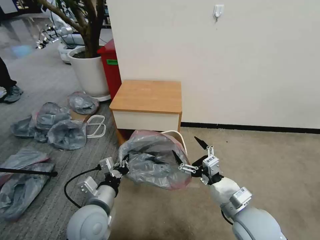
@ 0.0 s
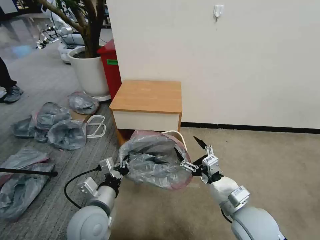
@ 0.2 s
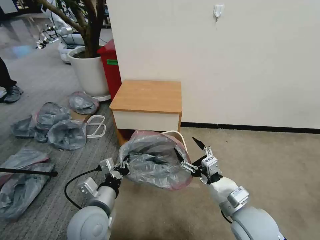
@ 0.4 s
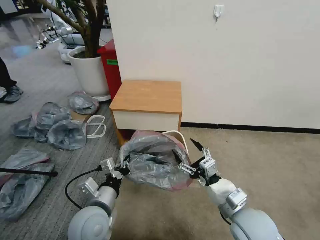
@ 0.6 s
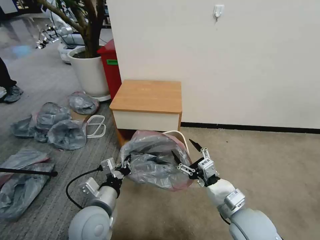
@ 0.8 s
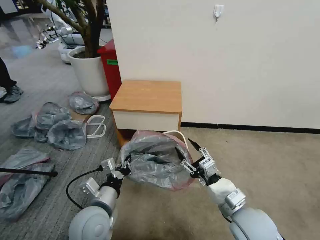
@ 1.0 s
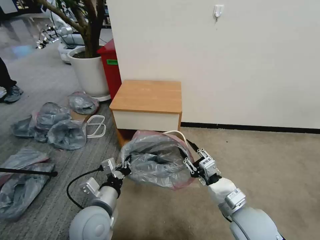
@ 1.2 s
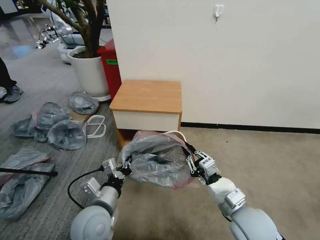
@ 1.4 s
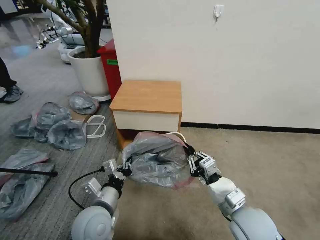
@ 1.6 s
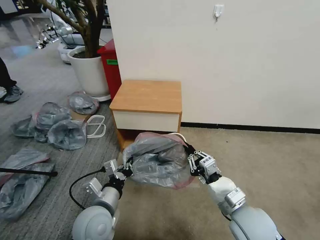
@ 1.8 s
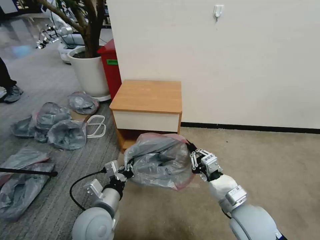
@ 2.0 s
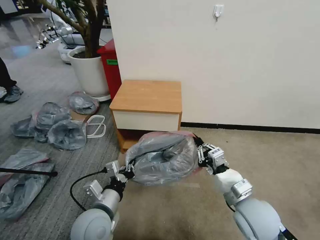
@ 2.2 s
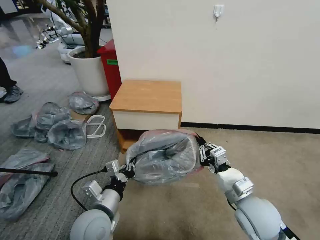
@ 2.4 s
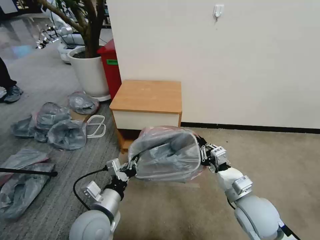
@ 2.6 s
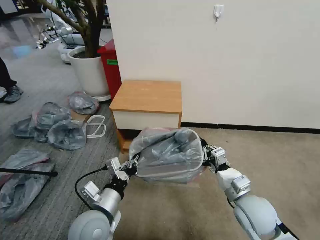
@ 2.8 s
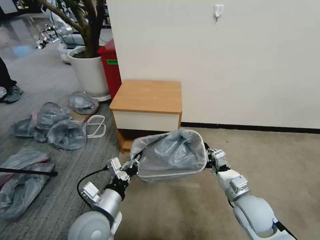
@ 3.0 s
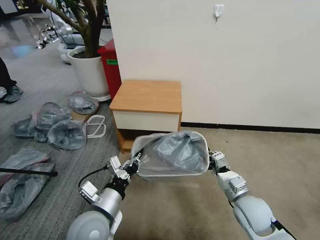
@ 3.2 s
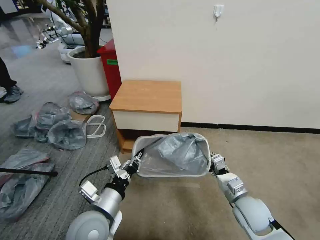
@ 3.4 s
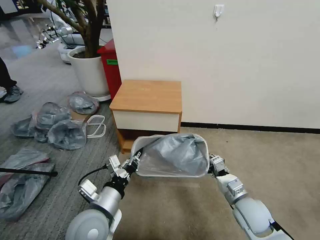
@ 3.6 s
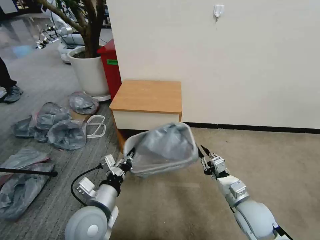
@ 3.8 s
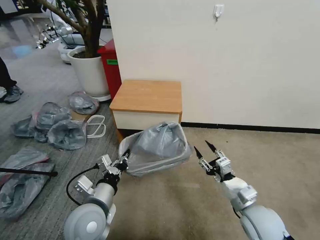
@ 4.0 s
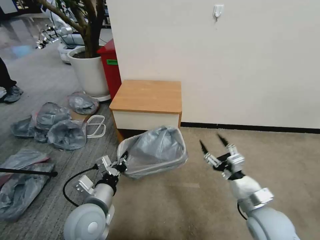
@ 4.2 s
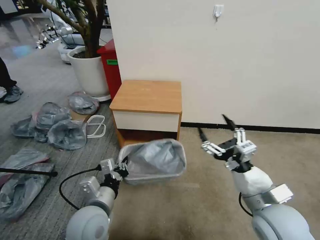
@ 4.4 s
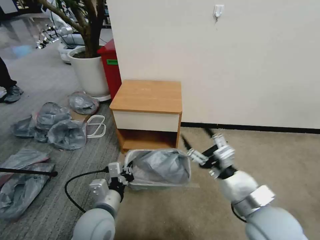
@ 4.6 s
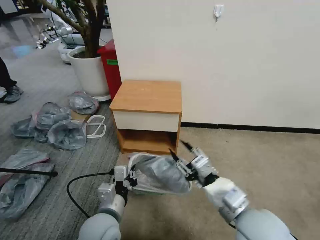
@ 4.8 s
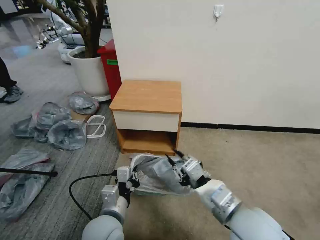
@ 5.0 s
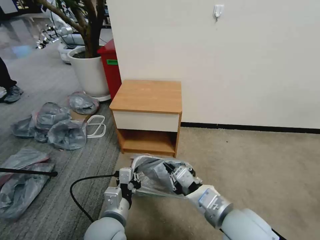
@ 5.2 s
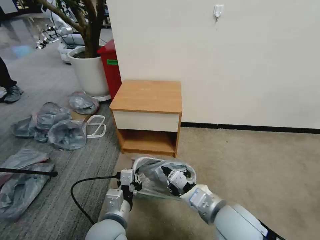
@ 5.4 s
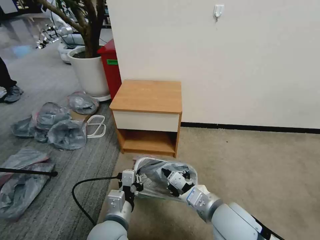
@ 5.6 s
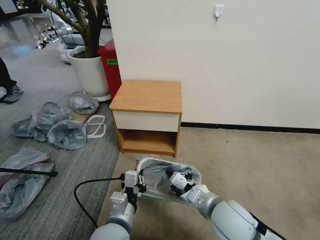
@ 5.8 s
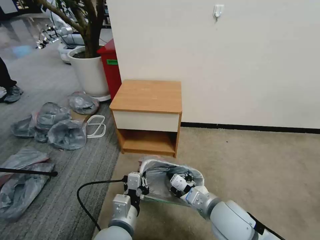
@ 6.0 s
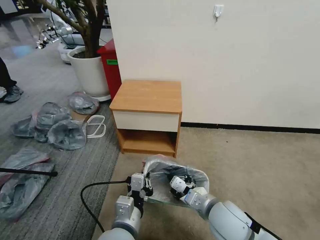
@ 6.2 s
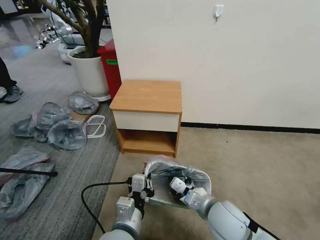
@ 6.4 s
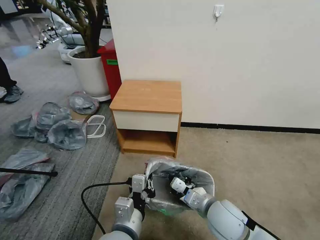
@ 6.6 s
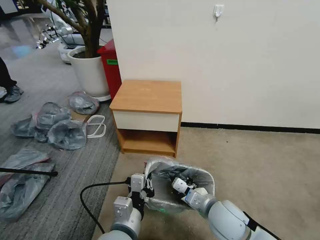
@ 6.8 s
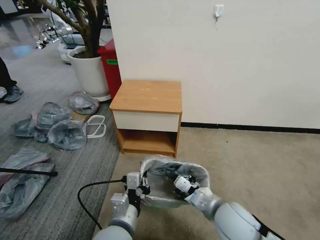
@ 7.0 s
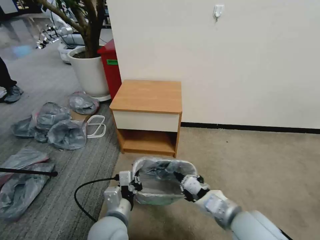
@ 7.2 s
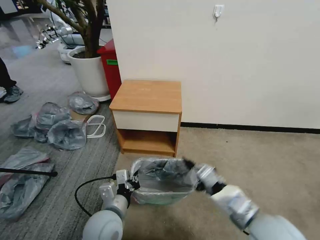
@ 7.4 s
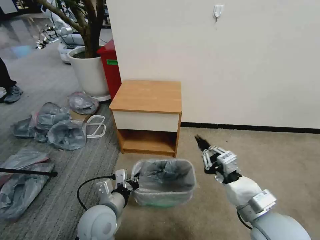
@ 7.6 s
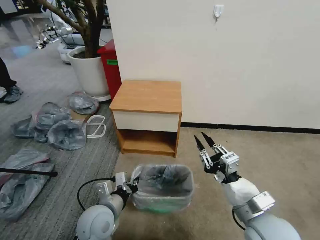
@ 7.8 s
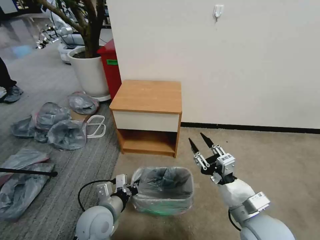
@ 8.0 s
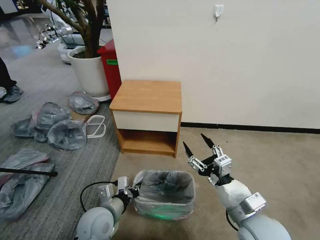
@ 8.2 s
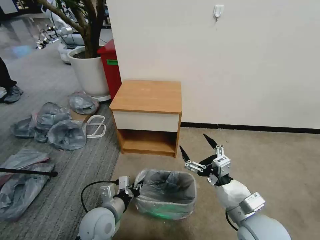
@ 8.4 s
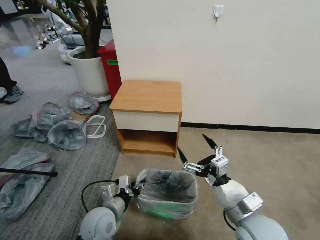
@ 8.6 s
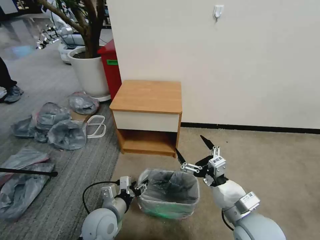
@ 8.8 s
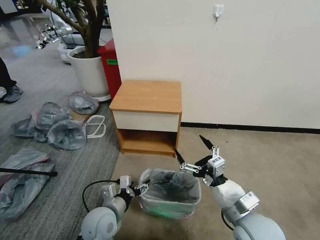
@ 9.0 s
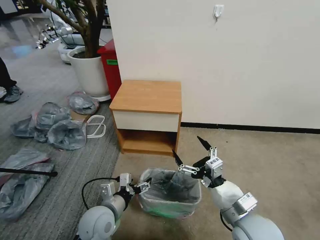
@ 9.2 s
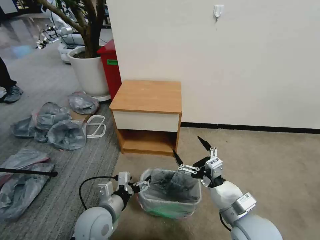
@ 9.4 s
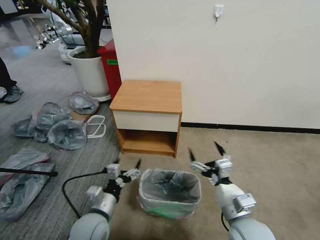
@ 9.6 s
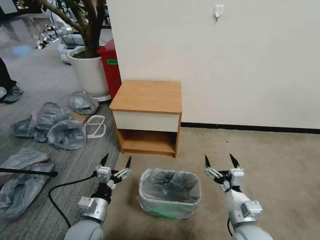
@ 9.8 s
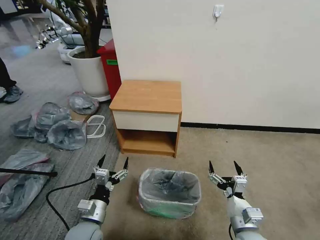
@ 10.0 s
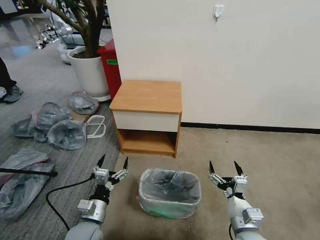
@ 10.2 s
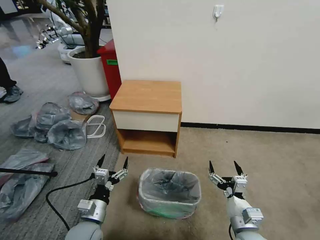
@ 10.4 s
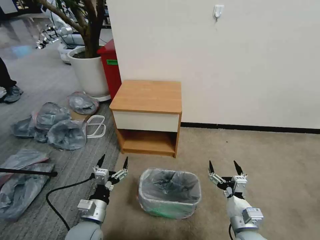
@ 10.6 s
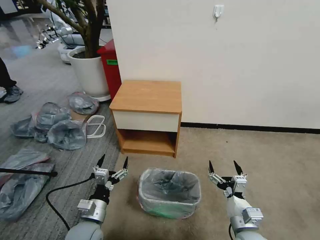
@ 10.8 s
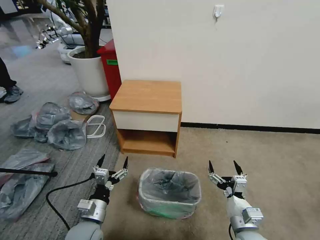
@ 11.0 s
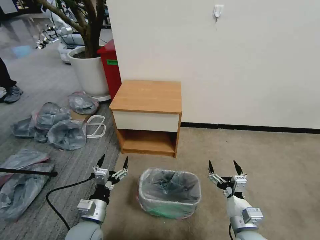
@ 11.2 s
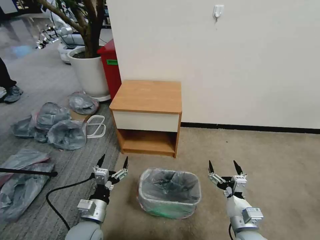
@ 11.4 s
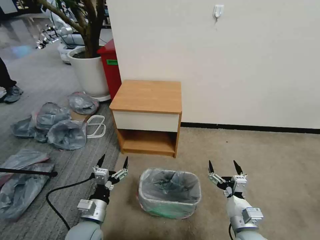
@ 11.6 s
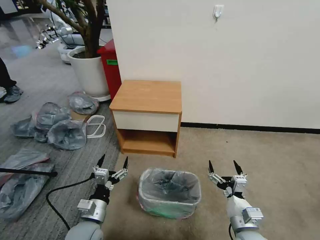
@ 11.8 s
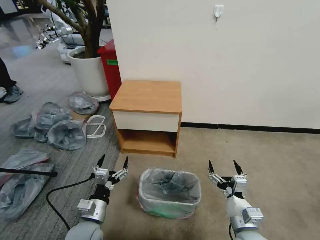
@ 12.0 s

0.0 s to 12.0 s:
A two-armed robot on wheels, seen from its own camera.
Task of the whole recording: Pick up the garbage bag from the table and place it over the trash can.
0.0 to 1.6 s: The right gripper closes its fingers.
1.6 to 3.0 s: The right gripper changes place by about 10 cm.
3.0 to 4.4 s: The right gripper moves upward, about 10 cm, and opens.
4.4 to 6.0 s: The right gripper shifts roughly 10 cm to the left and downward, and closes its fingers; the left gripper travels to the right by about 5 cm.
6.0 to 7.6 s: The left gripper shifts about 10 cm to the left and forward; the right gripper heads to the right and upward, covering approximately 10 cm.
7.6 to 9.0 s: The left gripper ends up approximately 5 cm from where it was, and opens. Meanwhile the right gripper opens its fingers.
9.0 to 10.4 s: The right gripper travels downward by roughly 10 cm; the left gripper moves approximately 5 cm.
10.4 to 12.0 s: Both grippers stay put.

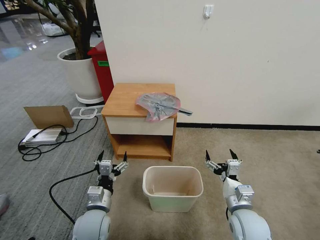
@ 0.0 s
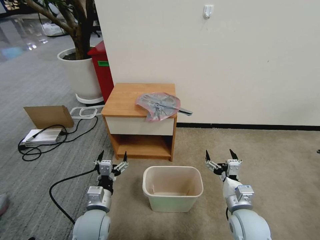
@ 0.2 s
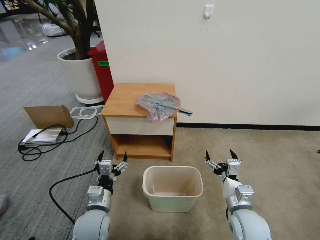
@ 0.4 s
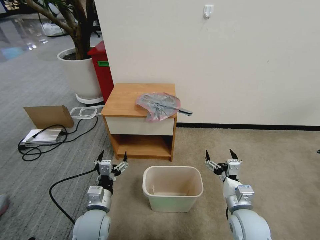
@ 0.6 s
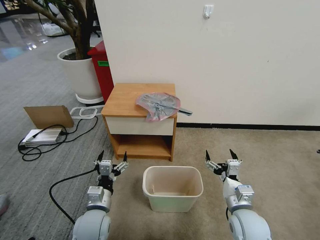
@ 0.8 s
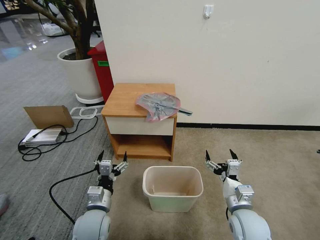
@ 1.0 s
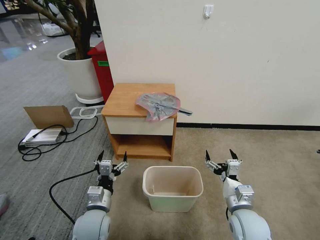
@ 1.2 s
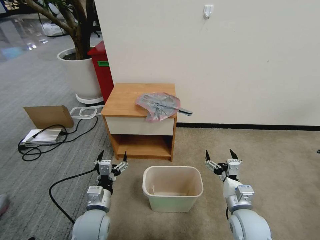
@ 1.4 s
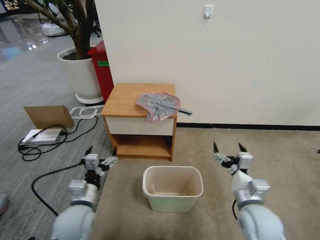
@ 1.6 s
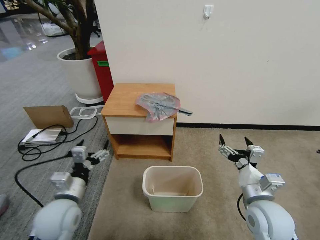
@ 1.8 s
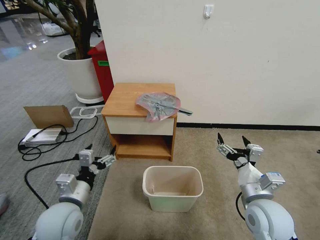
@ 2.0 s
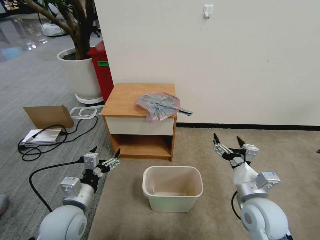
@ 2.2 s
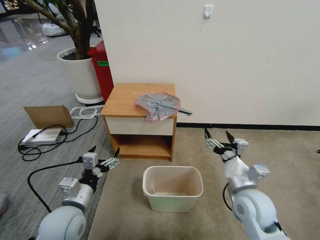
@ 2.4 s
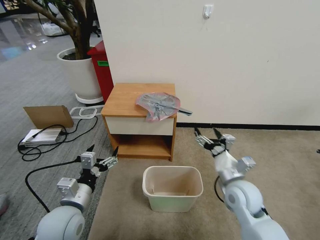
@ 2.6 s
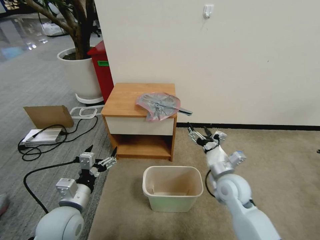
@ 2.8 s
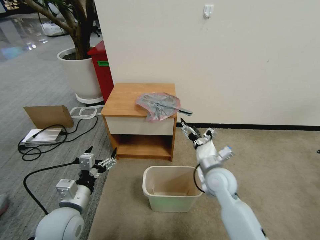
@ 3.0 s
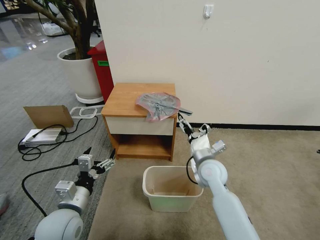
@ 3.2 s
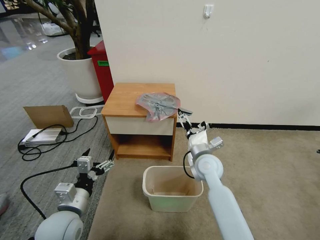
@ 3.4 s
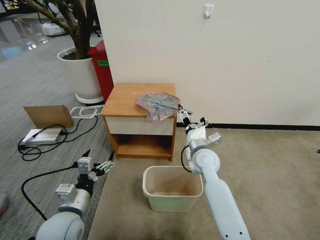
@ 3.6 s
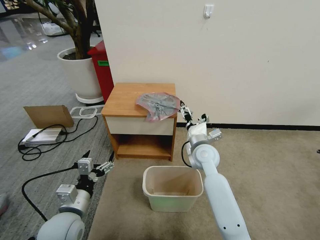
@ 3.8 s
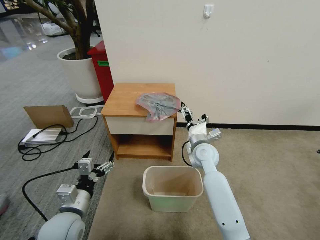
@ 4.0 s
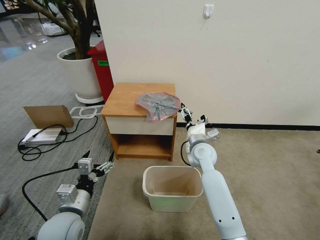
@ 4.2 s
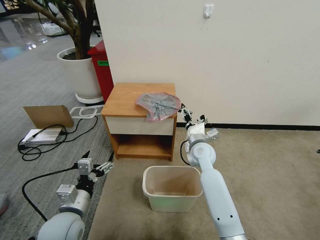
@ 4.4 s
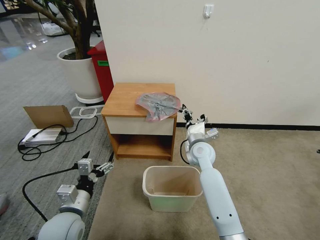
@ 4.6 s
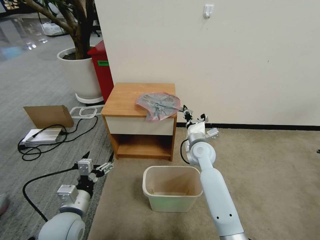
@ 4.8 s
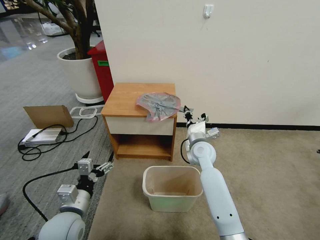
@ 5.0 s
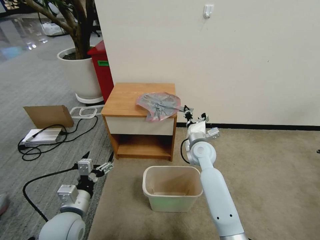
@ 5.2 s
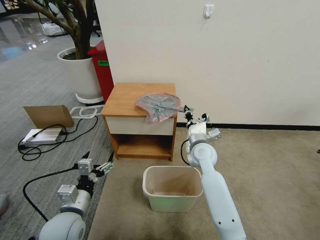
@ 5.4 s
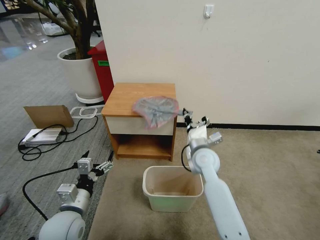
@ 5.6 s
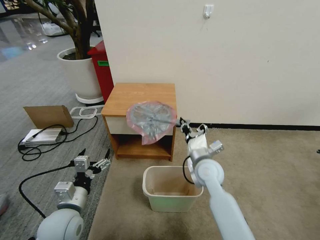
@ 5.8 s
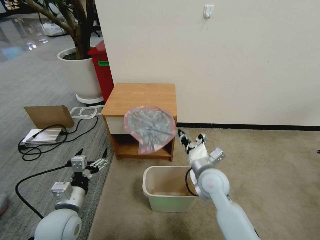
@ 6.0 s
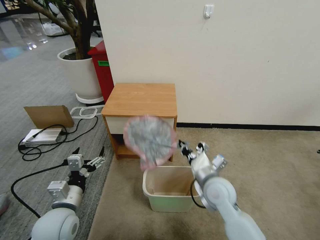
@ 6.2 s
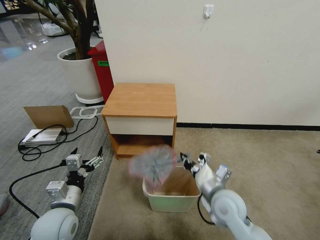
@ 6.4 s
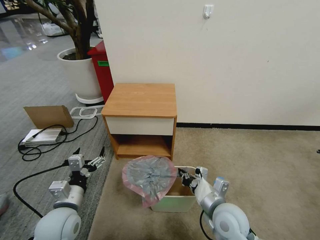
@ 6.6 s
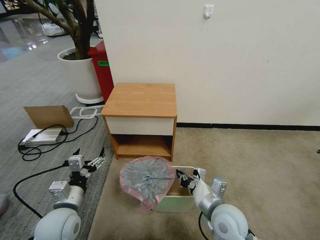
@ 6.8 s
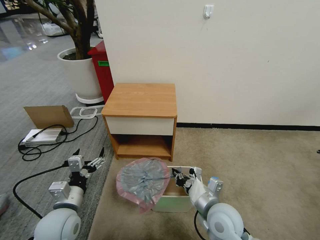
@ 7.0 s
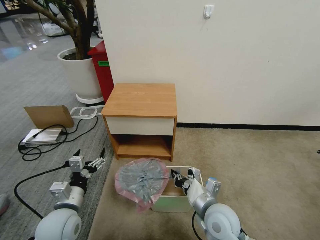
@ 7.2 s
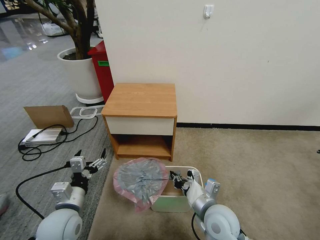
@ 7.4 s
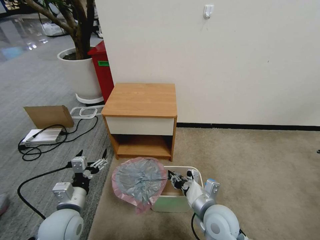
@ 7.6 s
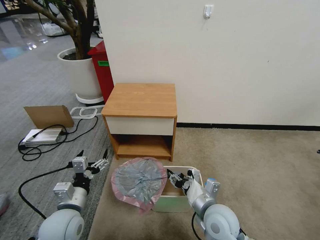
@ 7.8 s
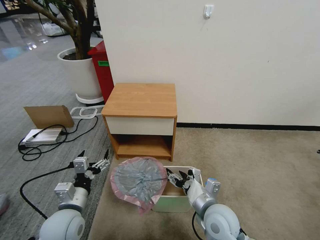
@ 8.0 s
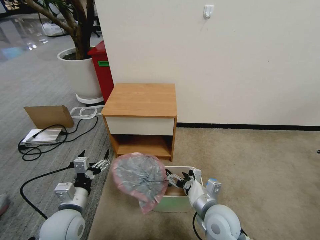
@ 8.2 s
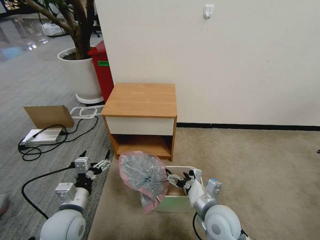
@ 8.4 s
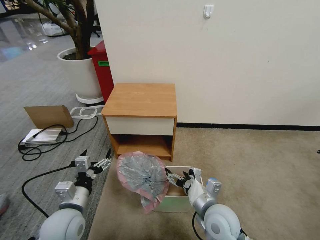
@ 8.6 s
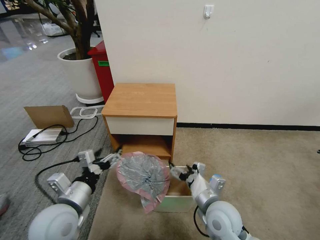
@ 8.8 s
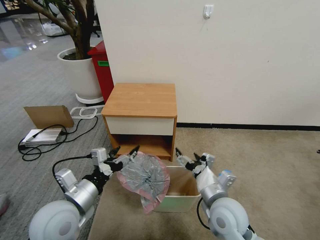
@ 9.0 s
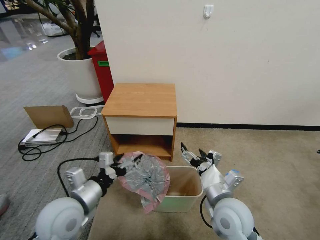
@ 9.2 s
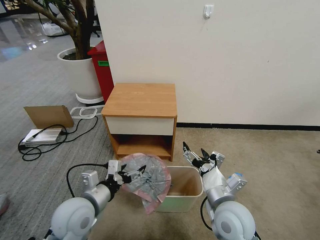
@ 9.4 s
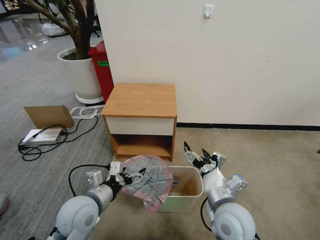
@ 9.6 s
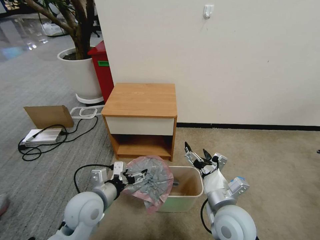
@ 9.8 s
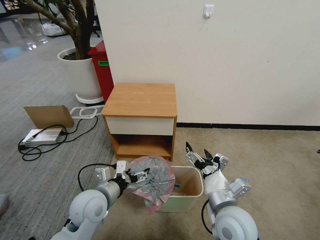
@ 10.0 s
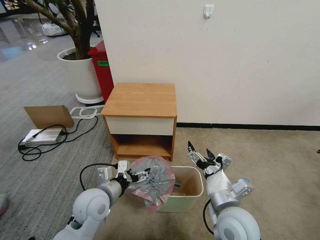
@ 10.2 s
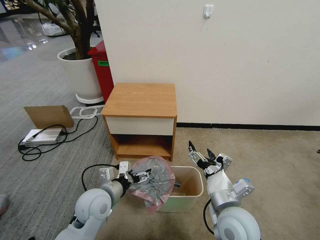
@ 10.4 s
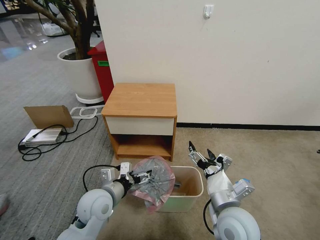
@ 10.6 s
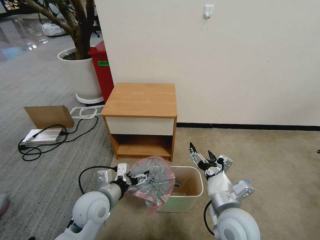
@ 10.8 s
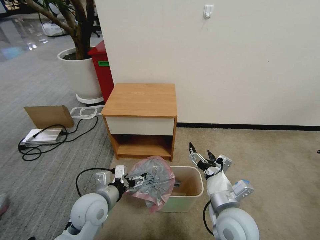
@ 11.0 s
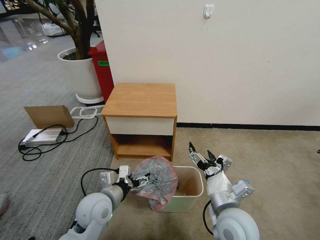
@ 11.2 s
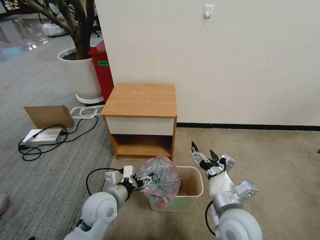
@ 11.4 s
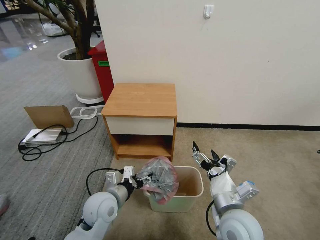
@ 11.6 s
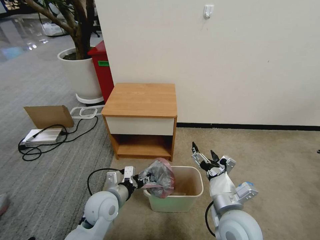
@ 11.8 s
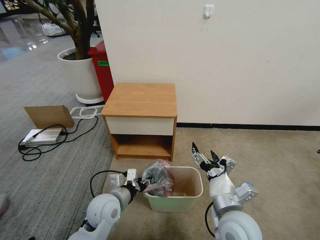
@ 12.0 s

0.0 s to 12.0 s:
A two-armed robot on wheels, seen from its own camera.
Task of the whole recording: Pick up the garbage bag from the table and place it over the trash can.
1.6 to 3.0 s: The right gripper travels forward and to the left by roughly 15 cm.
3.0 to 4.4 s: The right gripper shifts approximately 10 cm forward.
4.4 to 6.0 s: The right gripper shifts roughly 10 cm backward, and closes up.
6.0 to 7.6 s: The right gripper travels backward by approximately 10 cm.
7.6 to 9.0 s: The right gripper opens. The left gripper goes roughly 10 cm upward.
9.0 to 10.4 s: The left gripper goes roughly 10 cm downward, forward and to the right.
10.4 to 12.0 s: The left gripper closes.
